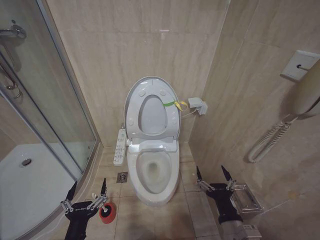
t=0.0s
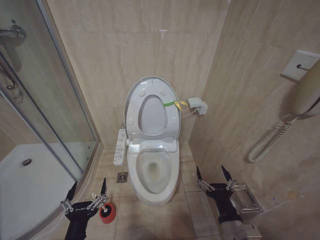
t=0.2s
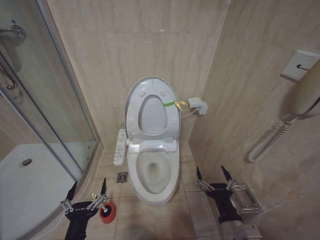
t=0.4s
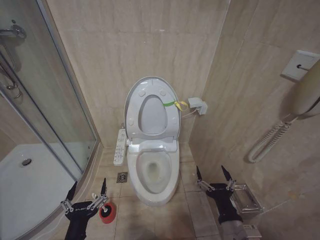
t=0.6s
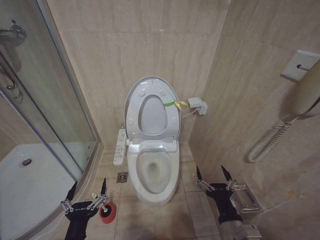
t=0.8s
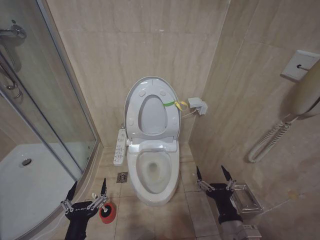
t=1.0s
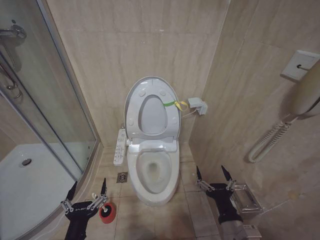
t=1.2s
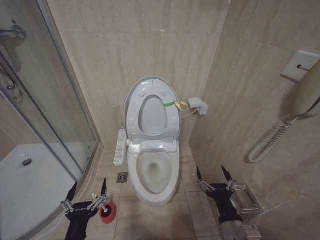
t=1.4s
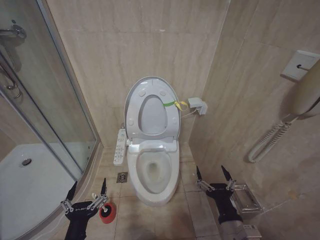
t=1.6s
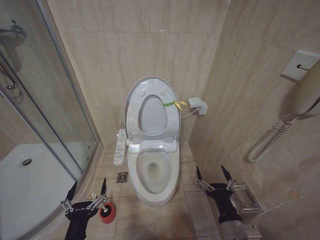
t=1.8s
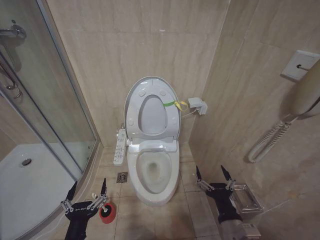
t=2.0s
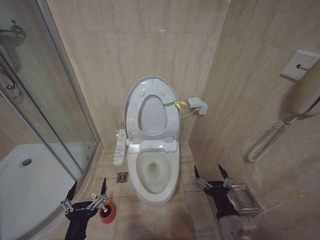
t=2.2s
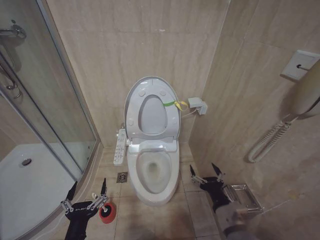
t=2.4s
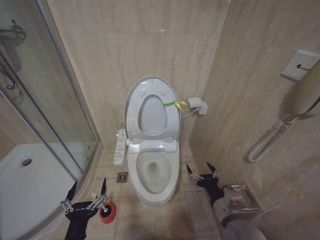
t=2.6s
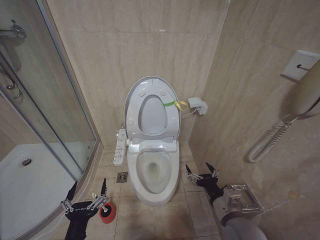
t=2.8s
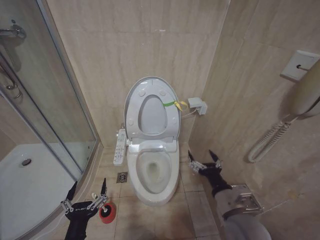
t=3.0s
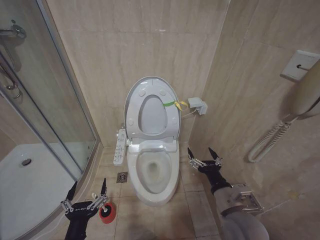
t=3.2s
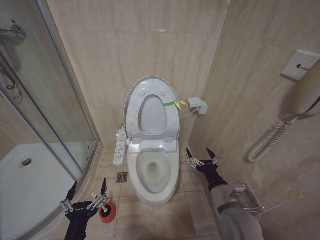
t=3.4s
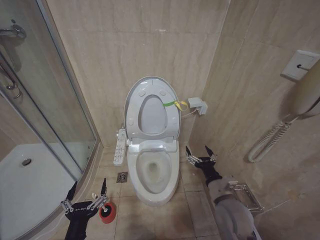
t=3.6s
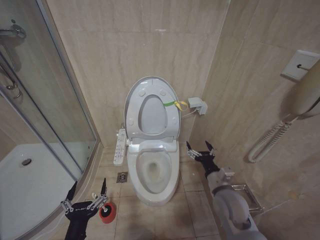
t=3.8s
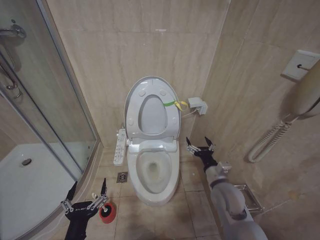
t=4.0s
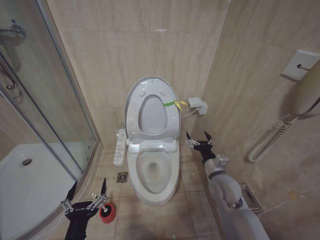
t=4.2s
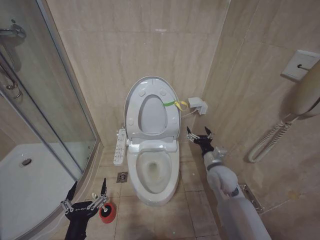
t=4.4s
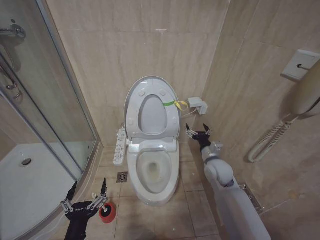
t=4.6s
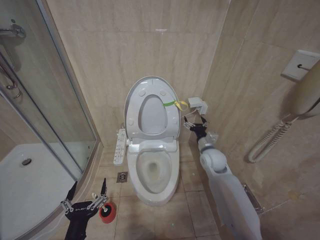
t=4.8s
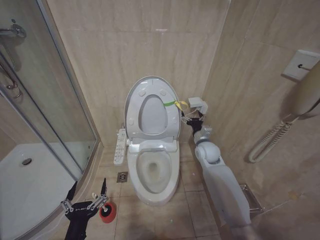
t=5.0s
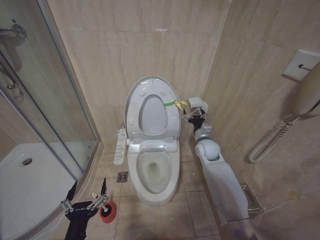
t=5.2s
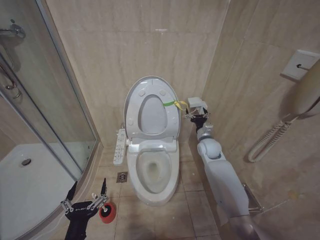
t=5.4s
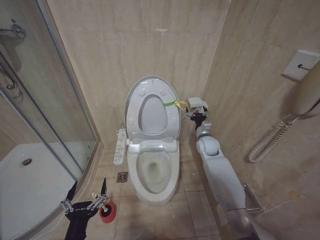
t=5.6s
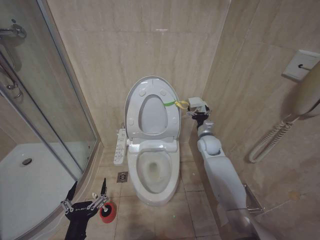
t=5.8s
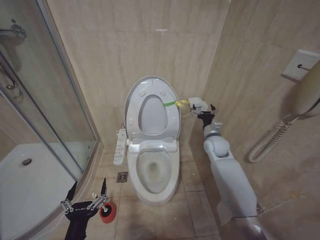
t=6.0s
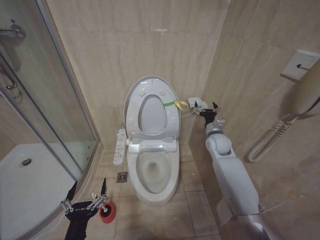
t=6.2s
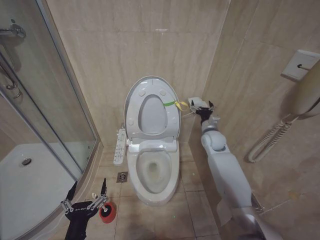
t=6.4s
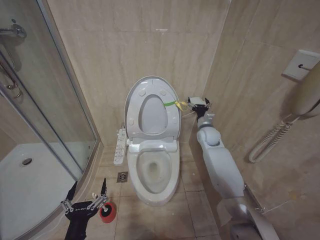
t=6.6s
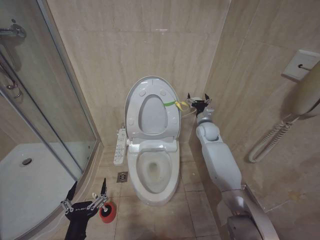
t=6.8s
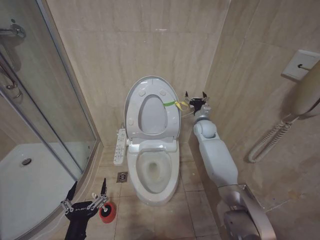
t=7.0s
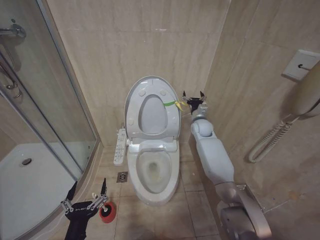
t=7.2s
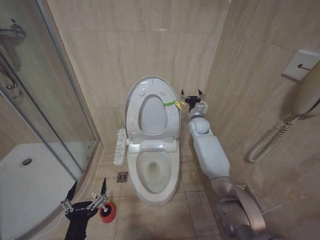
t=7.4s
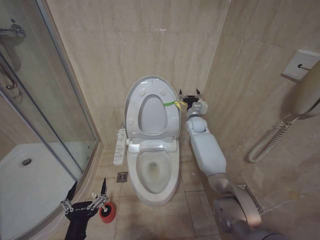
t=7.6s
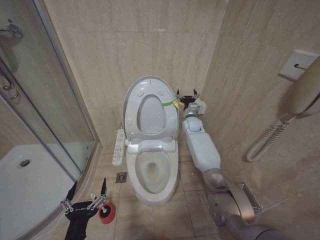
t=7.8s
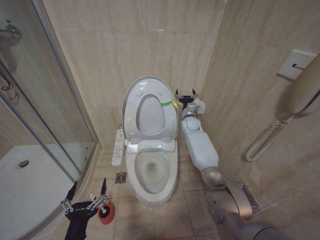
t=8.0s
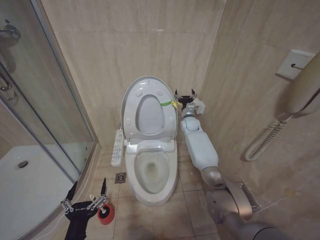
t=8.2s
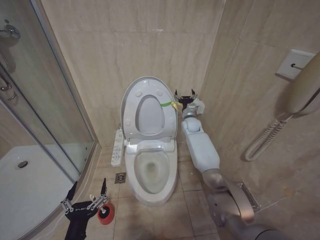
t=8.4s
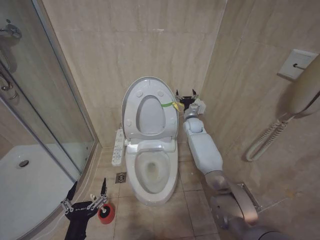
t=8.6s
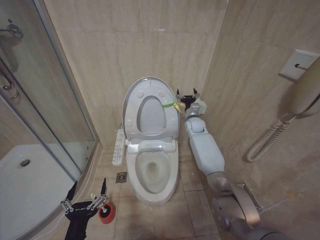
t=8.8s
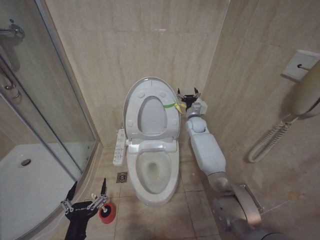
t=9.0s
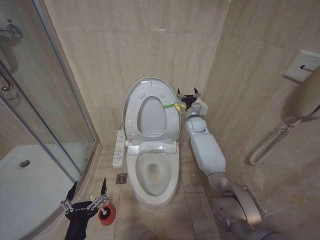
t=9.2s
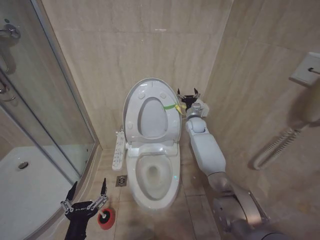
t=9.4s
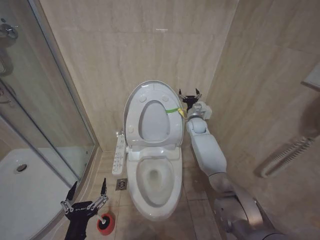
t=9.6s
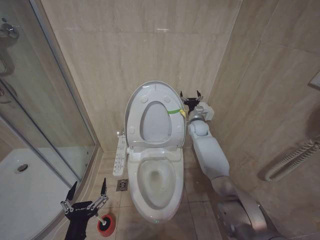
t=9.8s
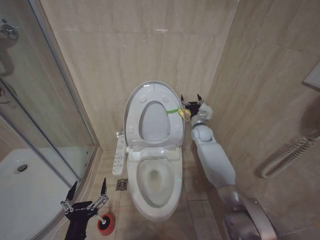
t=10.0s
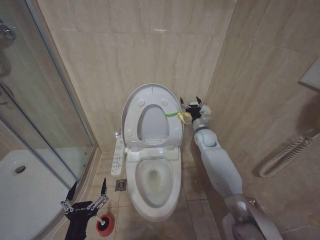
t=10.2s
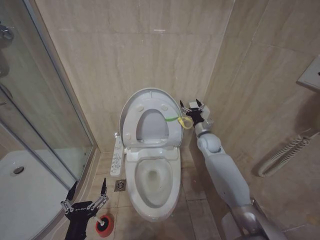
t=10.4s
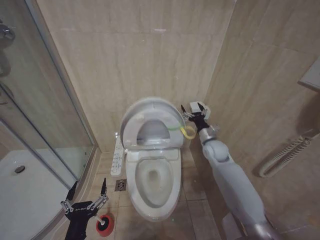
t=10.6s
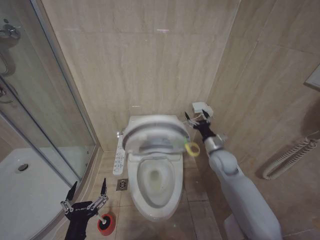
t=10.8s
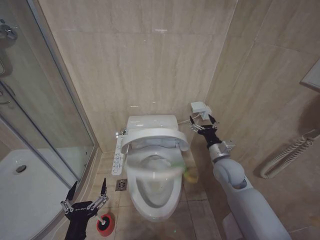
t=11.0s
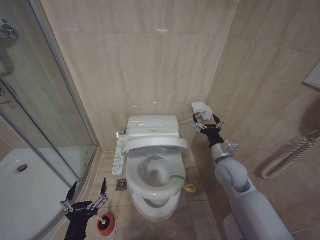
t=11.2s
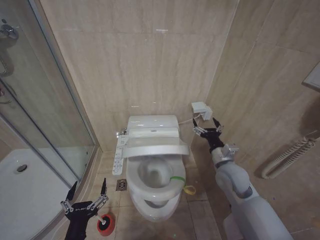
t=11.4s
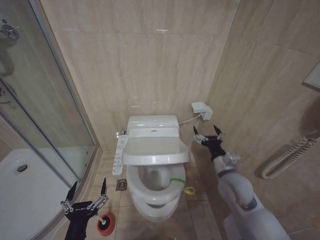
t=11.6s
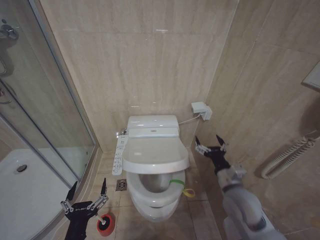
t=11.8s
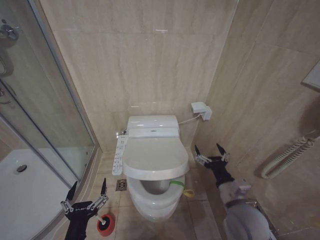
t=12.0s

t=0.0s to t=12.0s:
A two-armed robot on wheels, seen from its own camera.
Task of the whole recording: Open the toilet lid, clean the toilet bowl with a toilet brush, close the toilet lid, and flush.
t=0.0s to t=1.6s: Both grippers stay put.
t=1.6s to t=3.0s: The right gripper is displaced forward by some 5 cm.
t=3.0s to t=4.4s: The right gripper moves forward, about 15 cm.
t=4.4s to t=6.0s: The right gripper shifts roughly 15 cm forward.
t=6.0s to t=7.6s: The right gripper travels forward by roughly 10 cm.
t=9.0s to t=10.4s: The right gripper goes roughly 10 cm backward.
t=10.4s to t=12.0s: The right gripper goes roughly 30 cm backward.

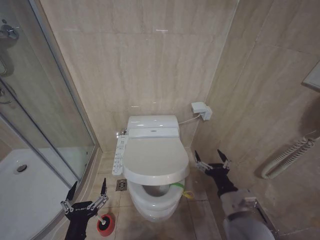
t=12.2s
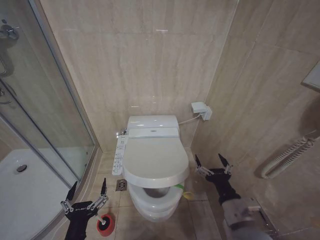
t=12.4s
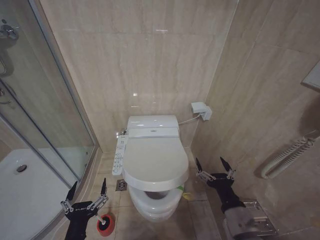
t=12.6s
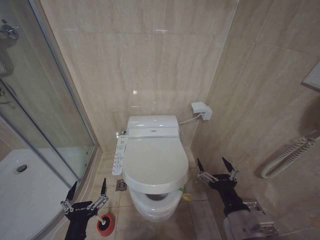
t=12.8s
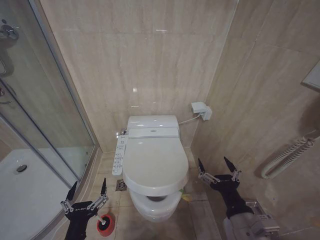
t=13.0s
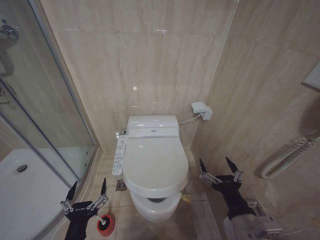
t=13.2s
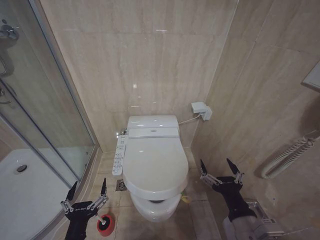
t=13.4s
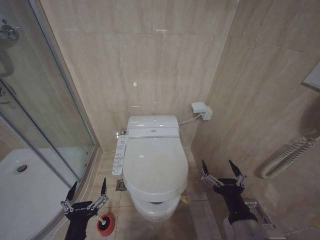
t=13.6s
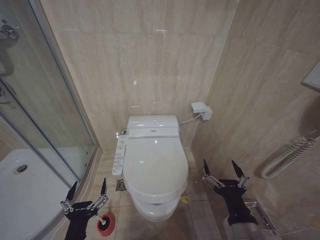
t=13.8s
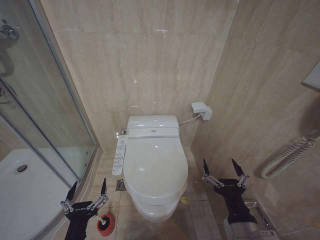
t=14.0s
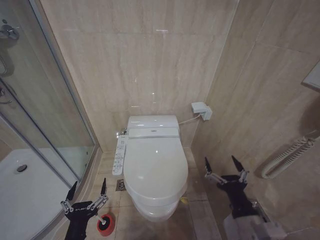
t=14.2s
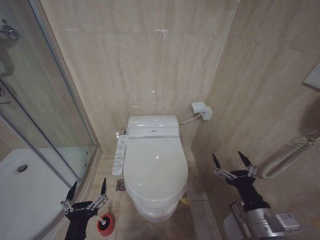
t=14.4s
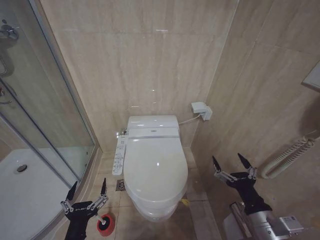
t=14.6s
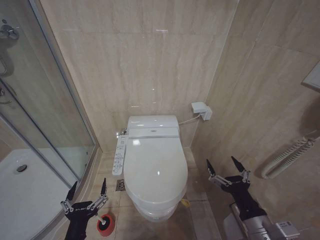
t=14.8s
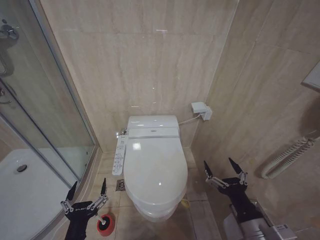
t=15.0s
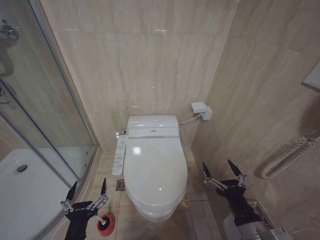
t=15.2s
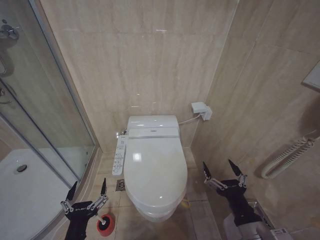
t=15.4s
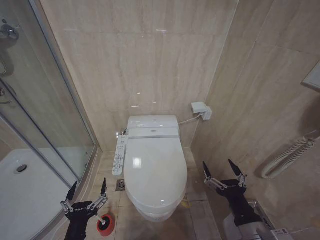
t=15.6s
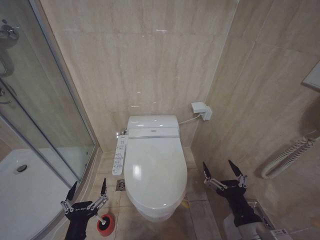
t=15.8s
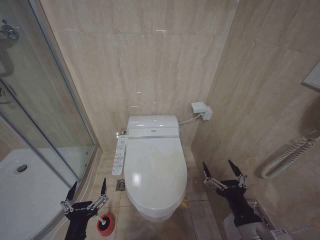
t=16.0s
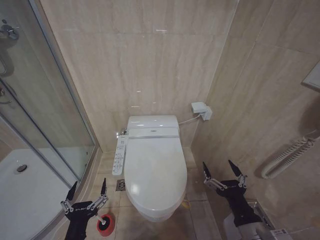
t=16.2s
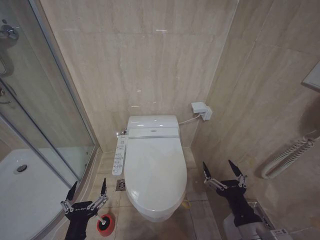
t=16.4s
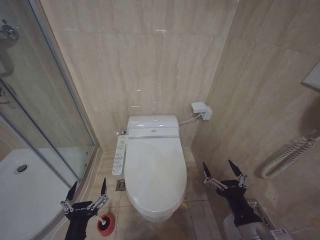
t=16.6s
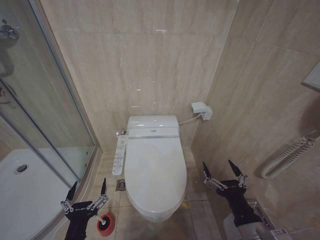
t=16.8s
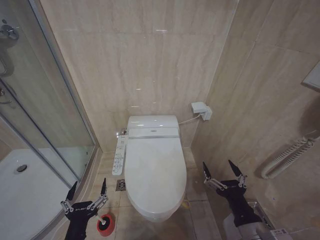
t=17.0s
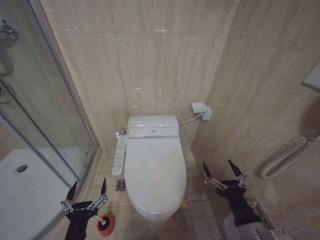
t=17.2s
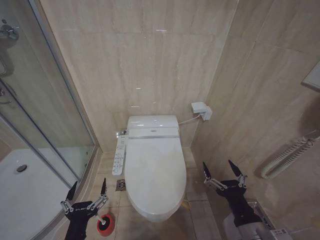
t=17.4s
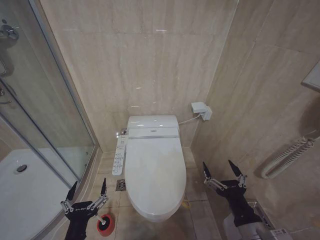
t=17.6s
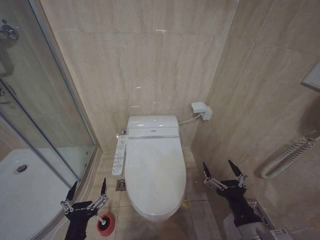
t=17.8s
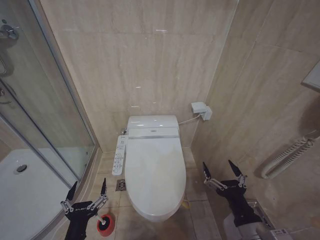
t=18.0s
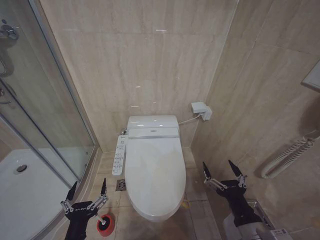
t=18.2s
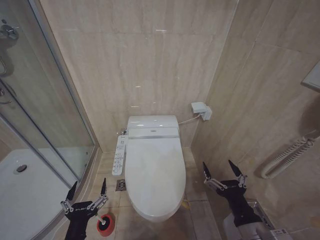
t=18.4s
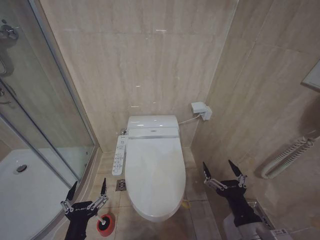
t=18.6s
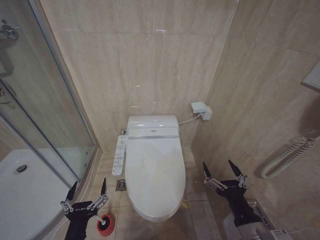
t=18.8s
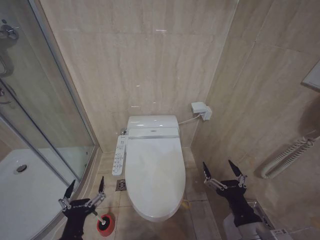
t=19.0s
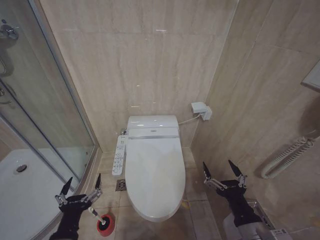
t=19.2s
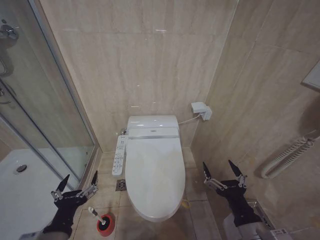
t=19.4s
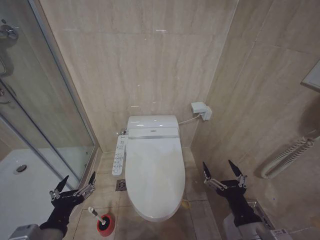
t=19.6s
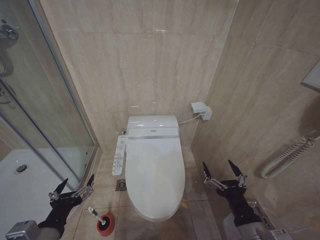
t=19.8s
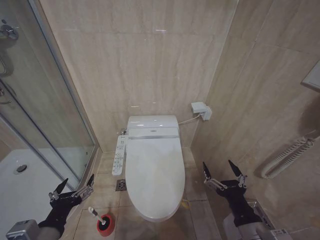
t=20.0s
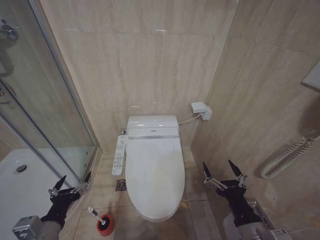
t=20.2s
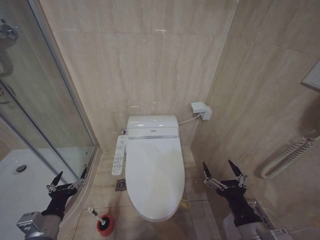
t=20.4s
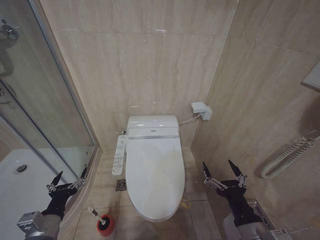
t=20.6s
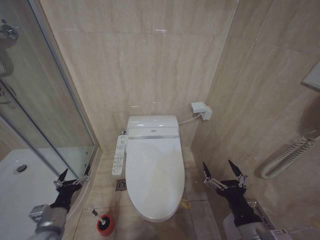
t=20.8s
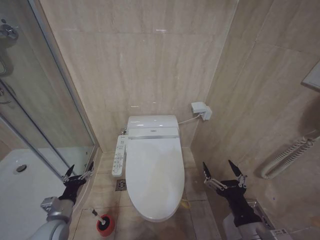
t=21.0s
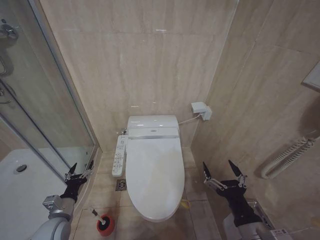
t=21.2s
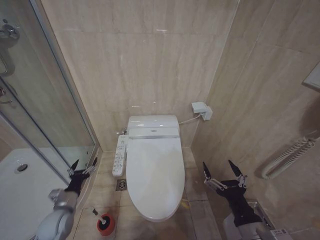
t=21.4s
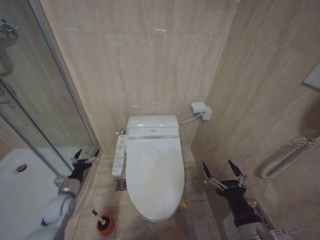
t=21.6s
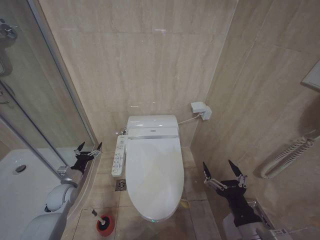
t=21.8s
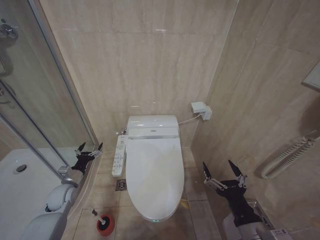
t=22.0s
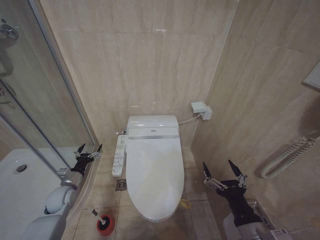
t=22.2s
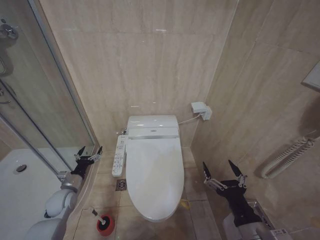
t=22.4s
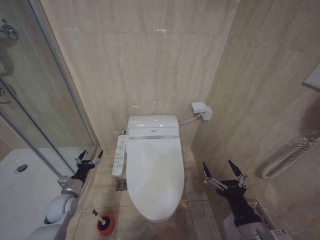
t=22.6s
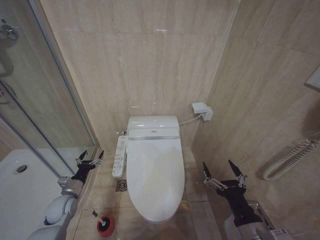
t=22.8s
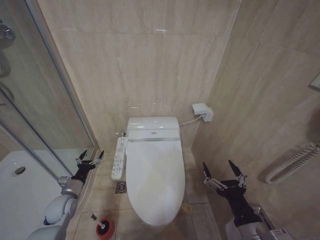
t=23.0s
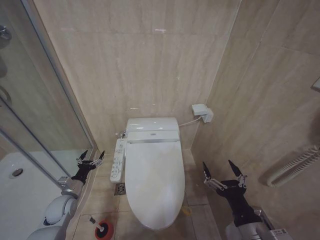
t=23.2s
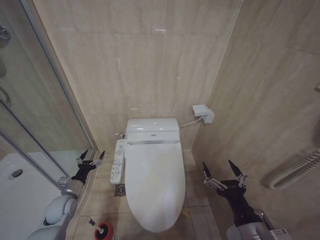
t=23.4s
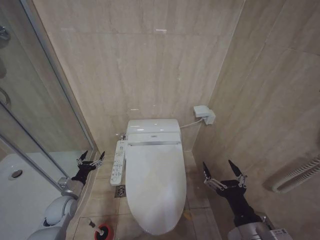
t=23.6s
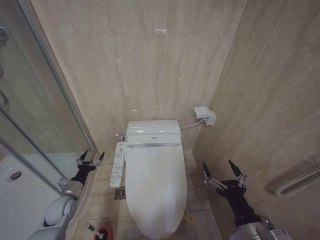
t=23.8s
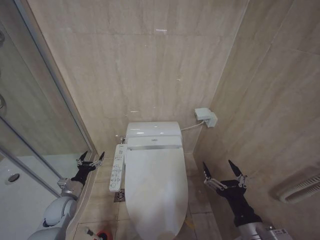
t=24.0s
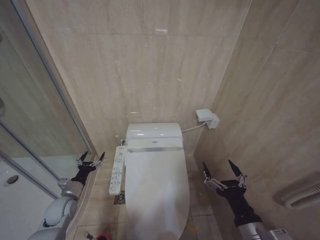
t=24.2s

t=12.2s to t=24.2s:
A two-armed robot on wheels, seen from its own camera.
Task of the whole recording: Open the toilet lid, clean the toilet bowl with a toilet brush, close the toilet lid, and flush.
t=12.2s to t=13.8s: The right gripper moves backward, about 10 cm.
t=15.2s to t=18.2s: Both grippers stay put.
t=18.2s to t=19.8s: The left gripper shifts some 10 cm upward and to the left.
t=19.8s to t=21.2s: The left gripper travels downward, forward and to the left by approximately 20 cm.
t=21.2s to t=22.6s: The left gripper shifts about 10 cm forward.
t=22.6s to t=24.2s: The two grippers keep their place.
